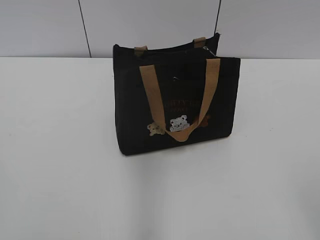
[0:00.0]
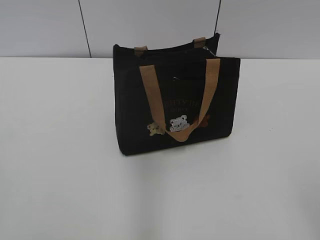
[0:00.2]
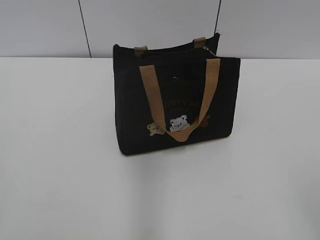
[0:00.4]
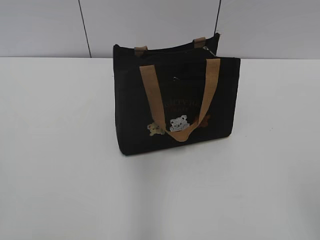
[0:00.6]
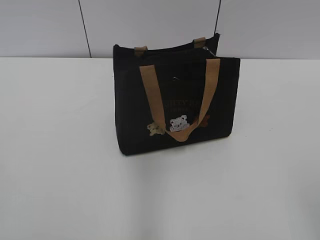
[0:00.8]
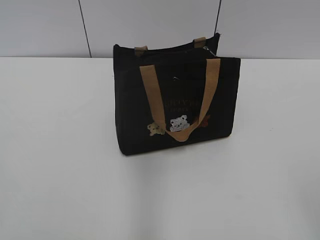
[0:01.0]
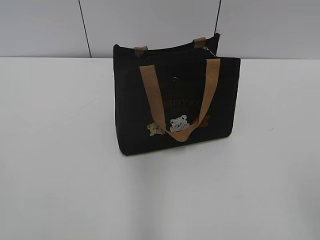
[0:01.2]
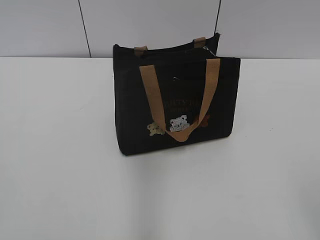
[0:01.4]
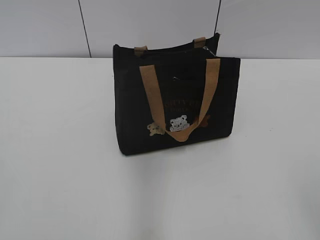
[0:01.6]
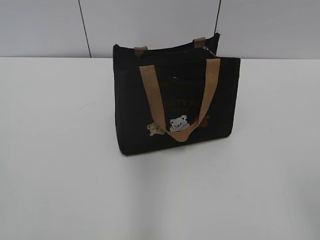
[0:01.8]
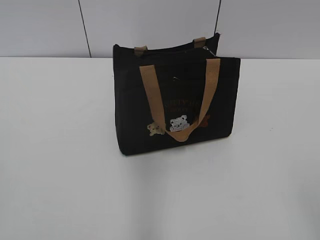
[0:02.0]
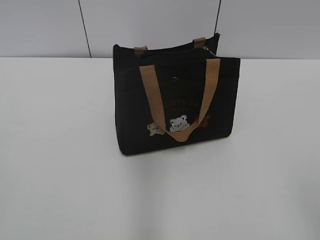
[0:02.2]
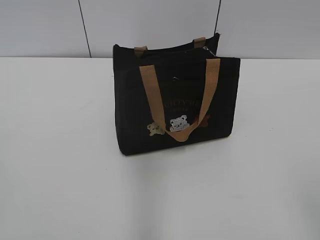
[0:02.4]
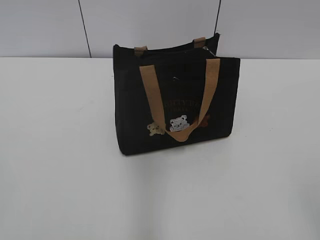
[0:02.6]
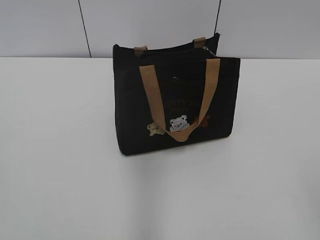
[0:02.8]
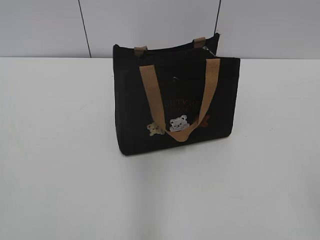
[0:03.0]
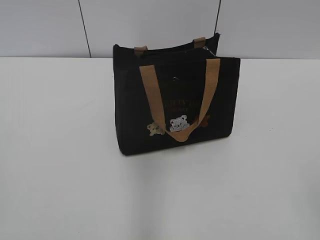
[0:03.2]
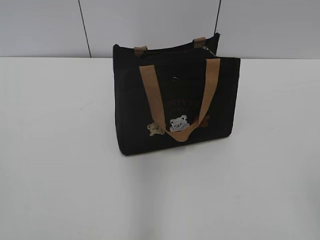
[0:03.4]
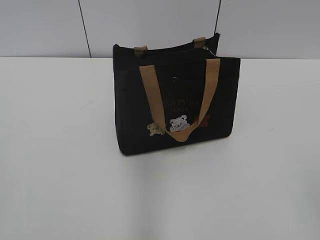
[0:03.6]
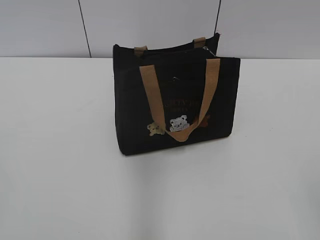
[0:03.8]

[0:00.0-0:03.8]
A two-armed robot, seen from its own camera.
0:00.0 to 0:02.6: The two grippers keep their place.

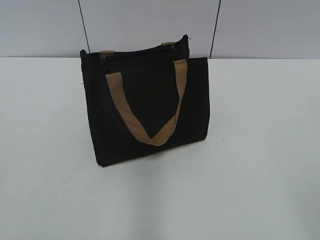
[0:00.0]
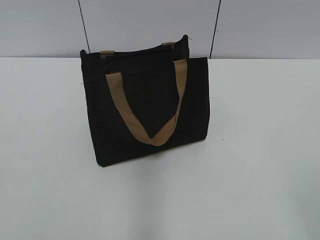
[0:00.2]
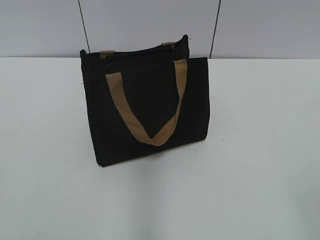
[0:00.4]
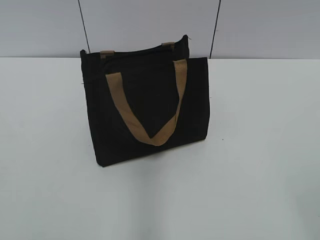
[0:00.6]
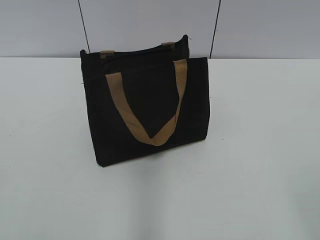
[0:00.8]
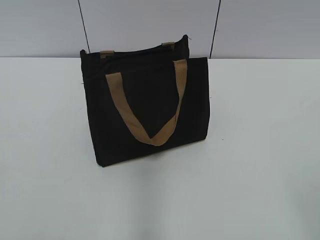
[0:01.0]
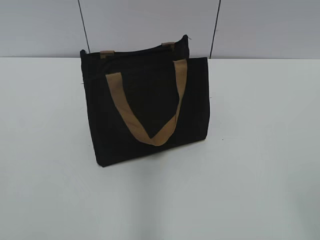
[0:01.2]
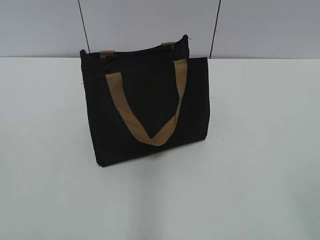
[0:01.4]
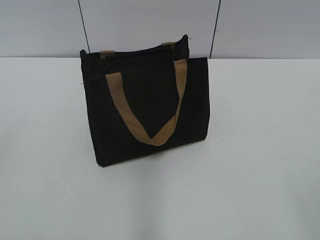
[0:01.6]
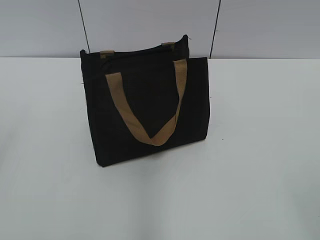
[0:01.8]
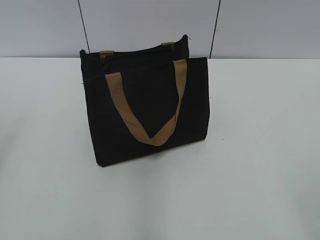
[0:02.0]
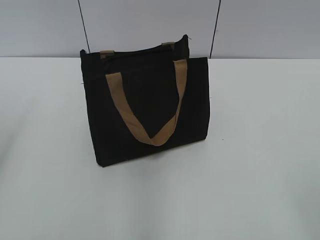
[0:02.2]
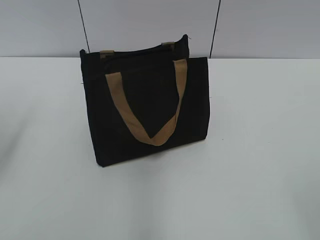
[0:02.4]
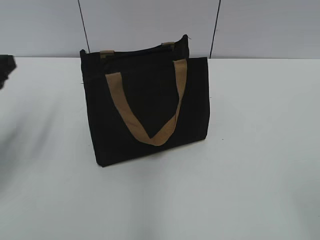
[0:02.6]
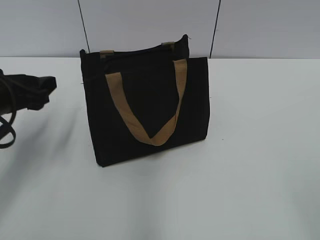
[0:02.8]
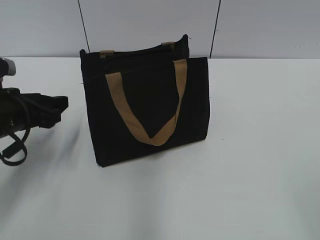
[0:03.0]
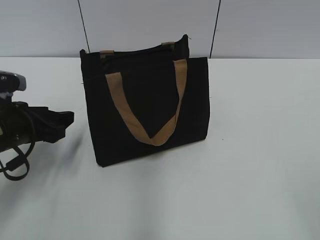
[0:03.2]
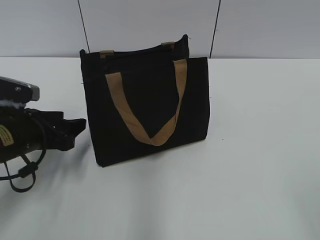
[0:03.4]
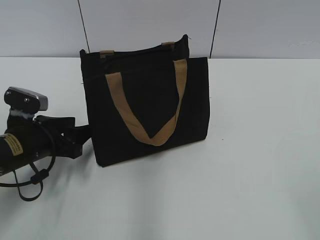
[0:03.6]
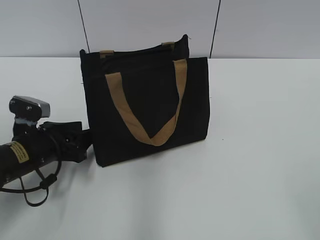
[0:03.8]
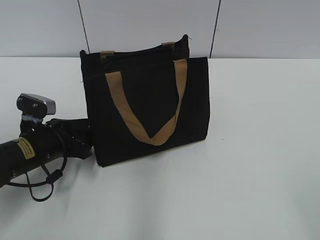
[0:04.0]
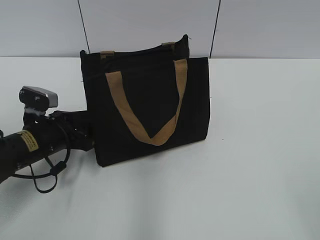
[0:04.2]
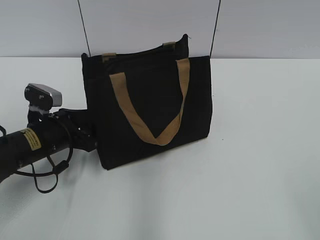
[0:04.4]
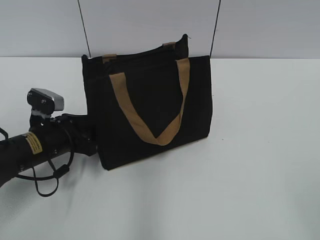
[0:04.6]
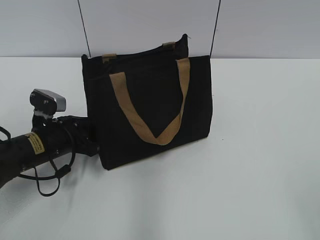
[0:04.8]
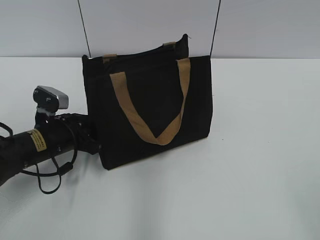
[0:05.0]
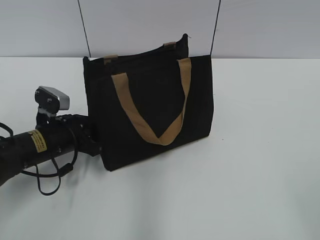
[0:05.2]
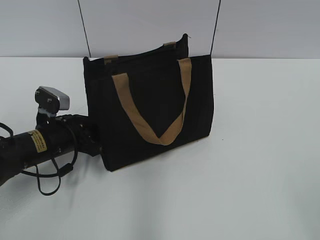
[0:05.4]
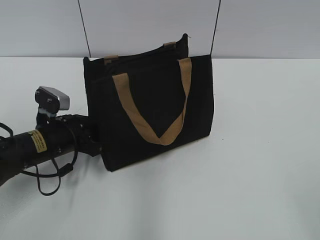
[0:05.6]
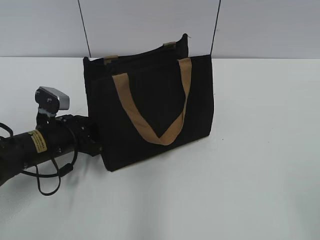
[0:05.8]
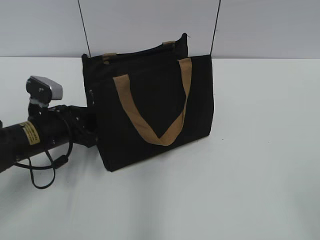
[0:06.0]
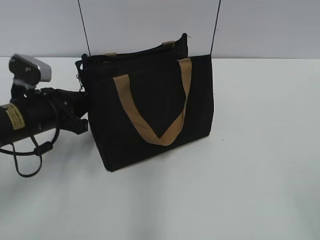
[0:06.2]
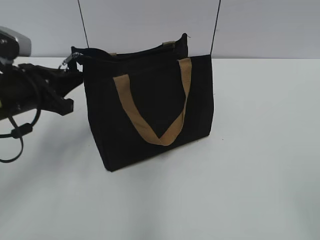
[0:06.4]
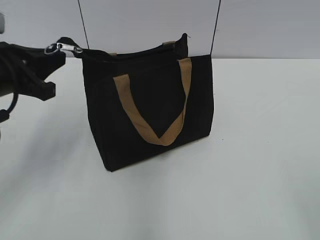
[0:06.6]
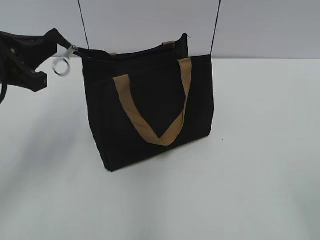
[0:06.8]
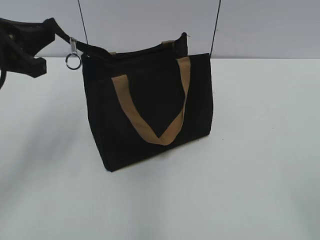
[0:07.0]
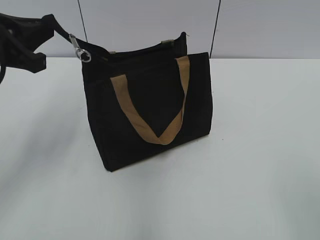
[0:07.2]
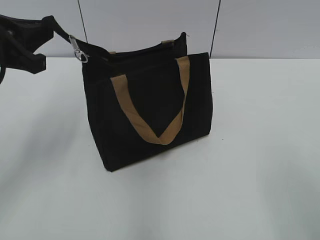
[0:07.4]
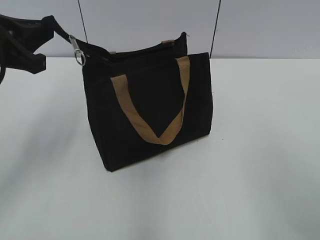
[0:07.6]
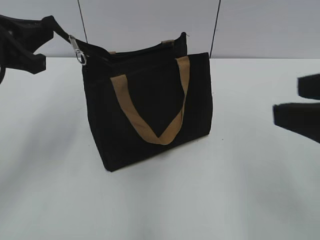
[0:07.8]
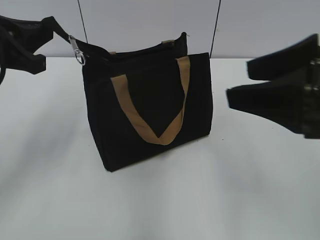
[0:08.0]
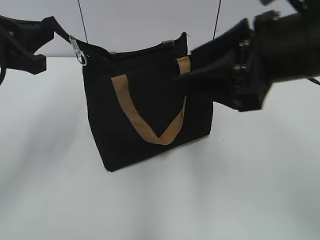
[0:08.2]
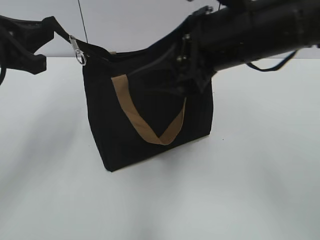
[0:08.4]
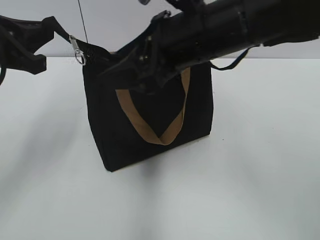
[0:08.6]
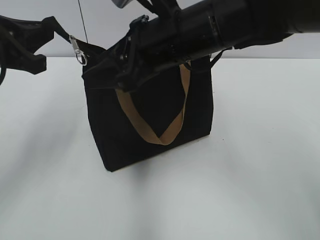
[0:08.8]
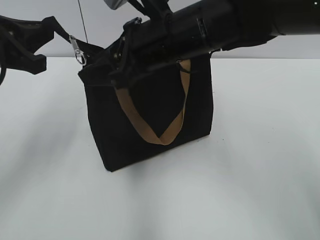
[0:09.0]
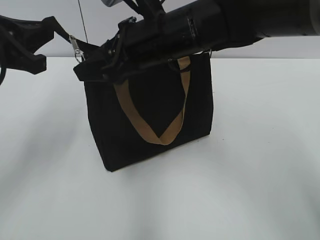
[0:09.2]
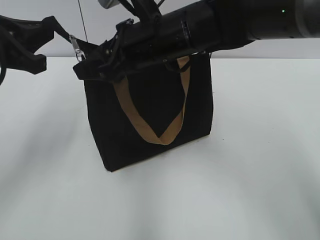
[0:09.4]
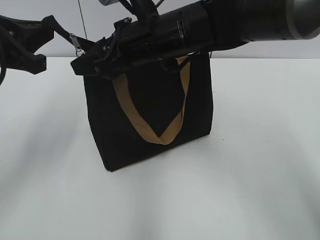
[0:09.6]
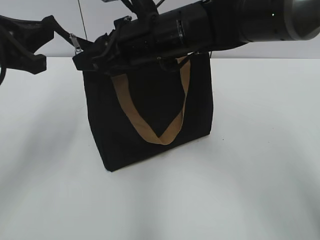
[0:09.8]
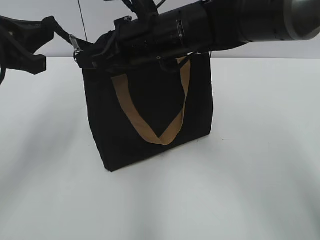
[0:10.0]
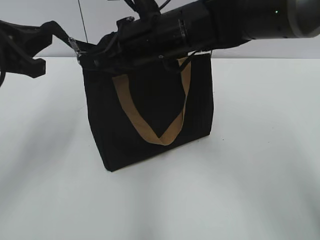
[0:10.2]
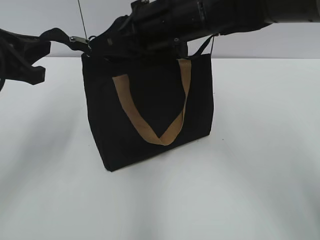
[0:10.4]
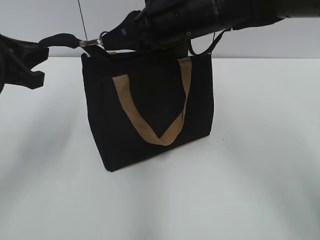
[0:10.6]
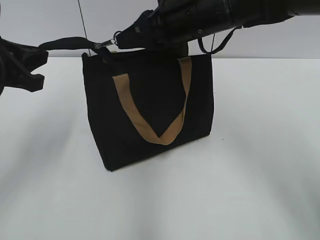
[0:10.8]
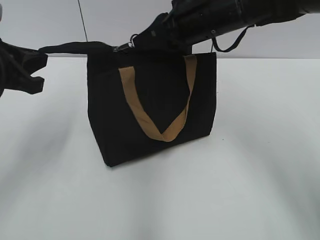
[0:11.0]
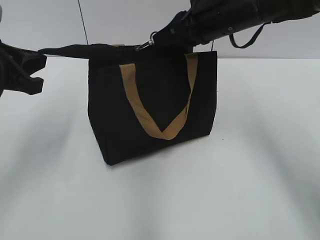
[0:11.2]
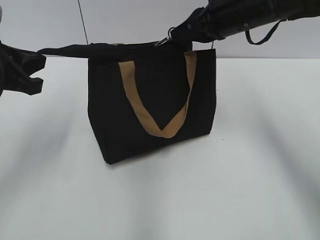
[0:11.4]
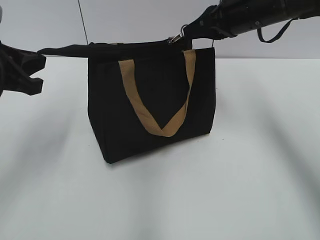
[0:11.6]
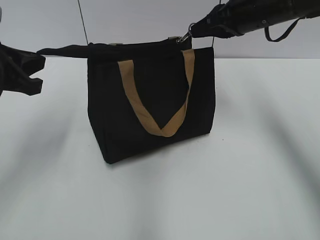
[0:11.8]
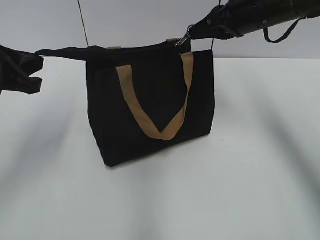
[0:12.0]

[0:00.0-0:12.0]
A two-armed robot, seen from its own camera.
0:01.6 to 0:03.0: The left gripper is displaced forward and downward by some 30 cm.
0:03.0 to 0:04.4: The left gripper is displaced downward by roughly 5 cm.
0:04.4 to 0:06.0: The left gripper closes.
0:06.0 to 0:07.6: The right gripper goes about 10 cm forward. Meanwhile the left gripper moves upward, about 20 cm.
0:07.6 to 0:09.0: The right gripper is displaced forward and to the left by about 30 cm.
0:09.0 to 0:10.4: The right gripper closes up.
0:10.4 to 0:12.0: The right gripper travels to the right and forward by approximately 15 cm.

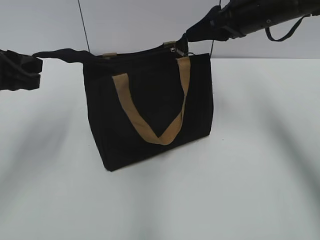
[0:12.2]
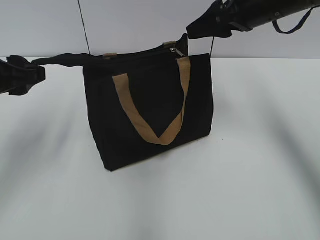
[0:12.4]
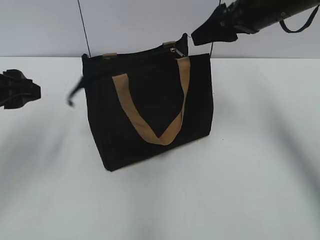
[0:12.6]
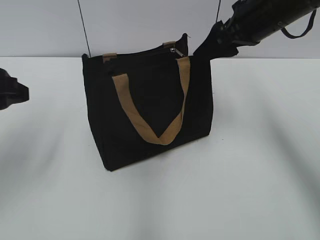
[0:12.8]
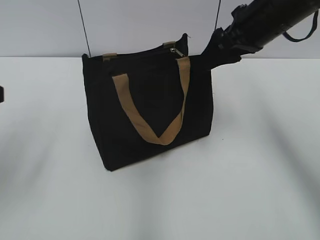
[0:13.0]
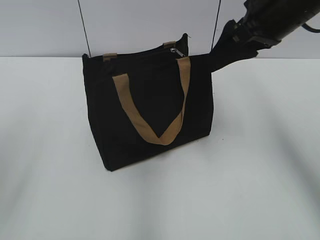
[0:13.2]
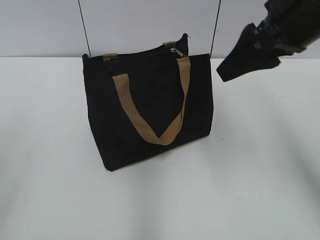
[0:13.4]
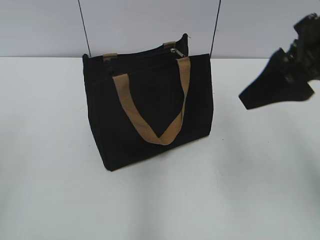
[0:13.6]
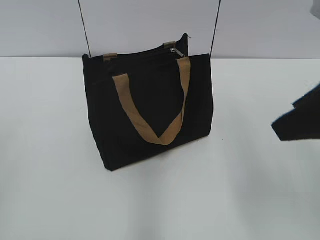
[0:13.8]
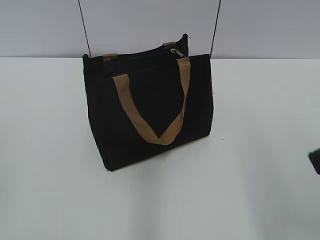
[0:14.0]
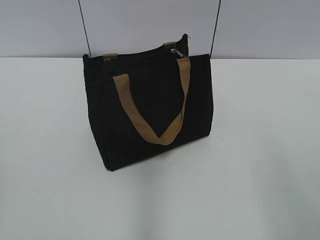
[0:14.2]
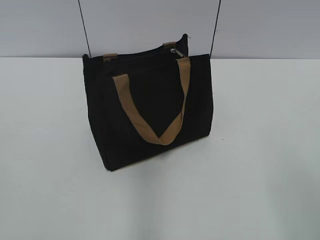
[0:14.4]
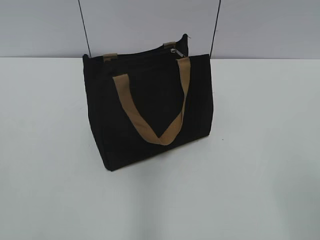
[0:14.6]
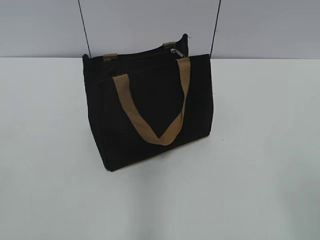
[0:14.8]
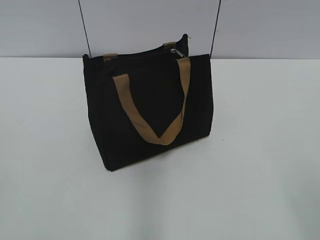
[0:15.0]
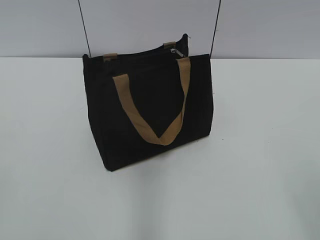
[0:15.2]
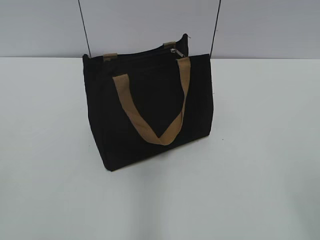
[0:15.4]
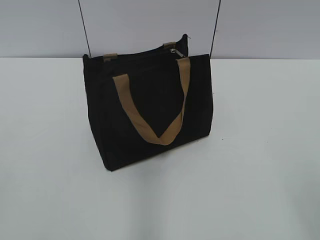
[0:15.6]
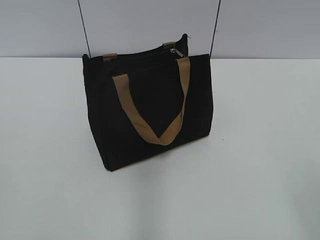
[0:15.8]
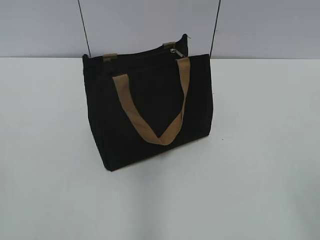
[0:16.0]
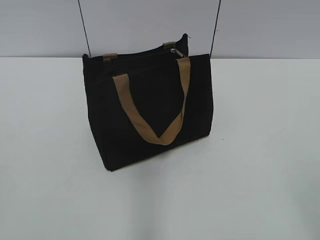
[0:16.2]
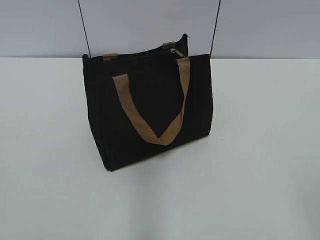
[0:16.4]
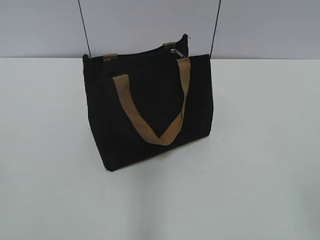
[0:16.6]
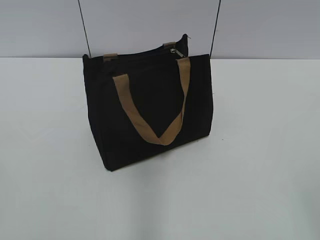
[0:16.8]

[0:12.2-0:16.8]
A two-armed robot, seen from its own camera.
0:12.2 to 0:13.8: The two grippers go about 20 cm backward. The right gripper opens its fingers, while the left gripper opens.
0:13.8 to 0:15.2: The right gripper travels backward and to the right by some 20 cm.

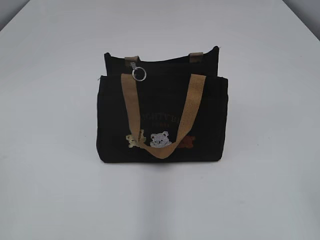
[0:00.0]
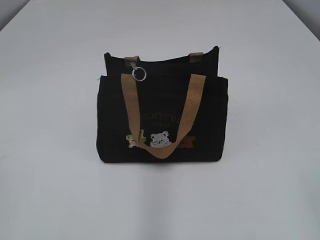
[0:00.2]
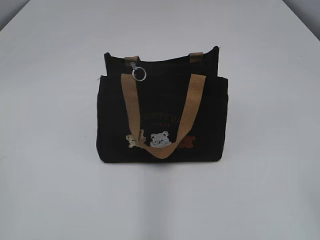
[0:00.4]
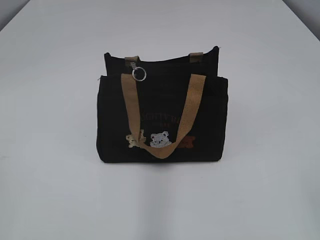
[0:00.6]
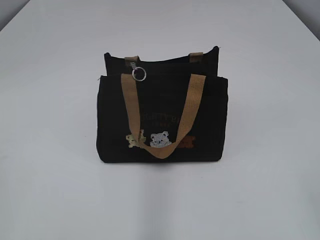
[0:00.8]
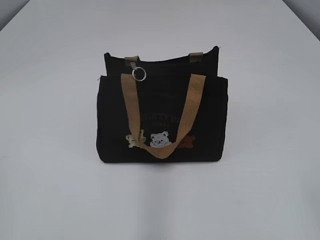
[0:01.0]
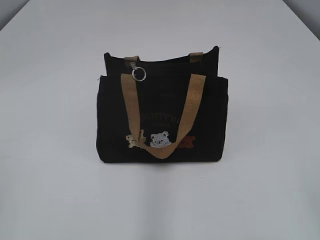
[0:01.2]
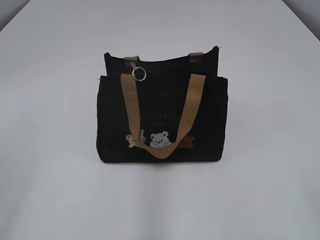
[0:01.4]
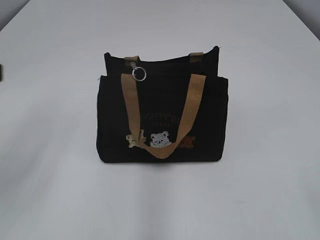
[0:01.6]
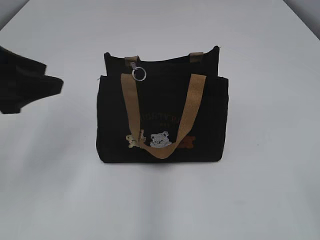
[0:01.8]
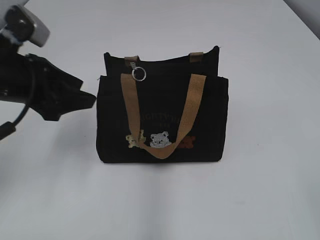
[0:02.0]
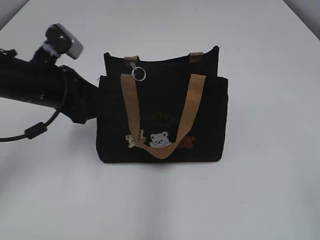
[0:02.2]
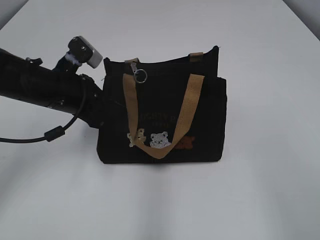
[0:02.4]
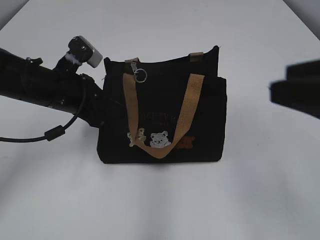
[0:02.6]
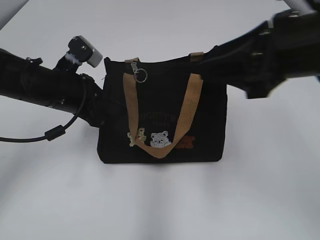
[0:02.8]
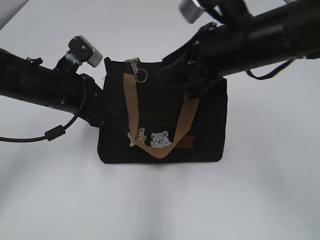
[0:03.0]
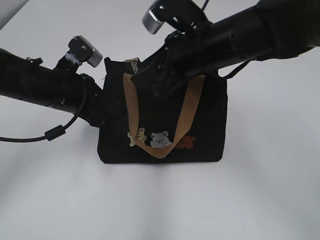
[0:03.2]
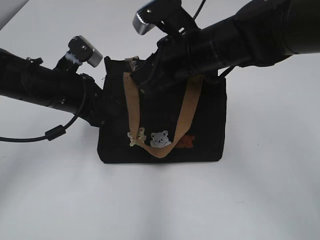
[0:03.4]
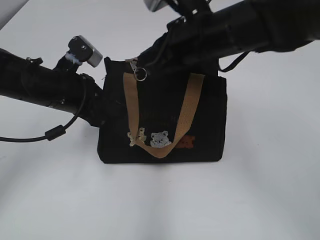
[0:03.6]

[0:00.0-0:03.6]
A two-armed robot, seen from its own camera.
0:01.8 to 0:03.6: The left gripper is displaced downward, forward and to the right by approximately 15 cm, and closes up. The right gripper heads forward and to the left, covering approximately 40 cm, and closes.
